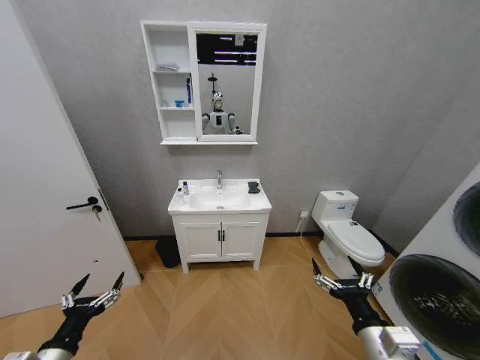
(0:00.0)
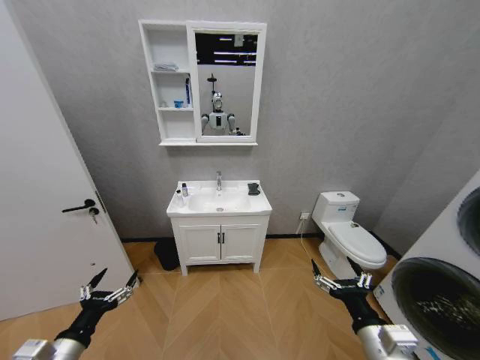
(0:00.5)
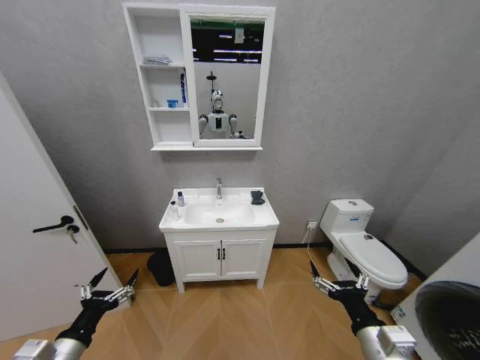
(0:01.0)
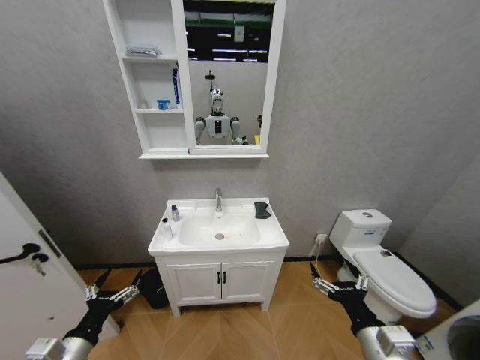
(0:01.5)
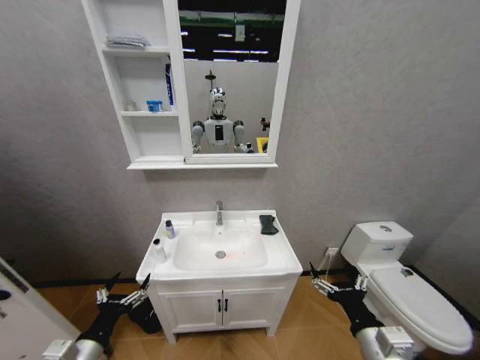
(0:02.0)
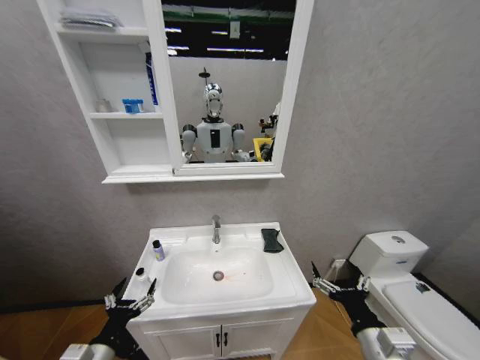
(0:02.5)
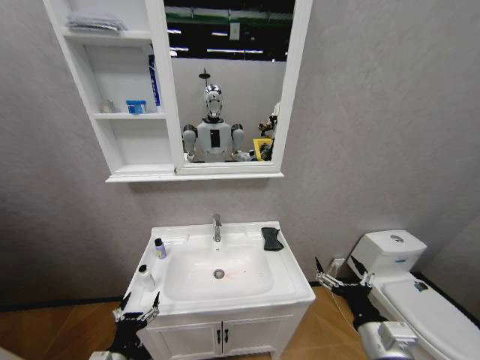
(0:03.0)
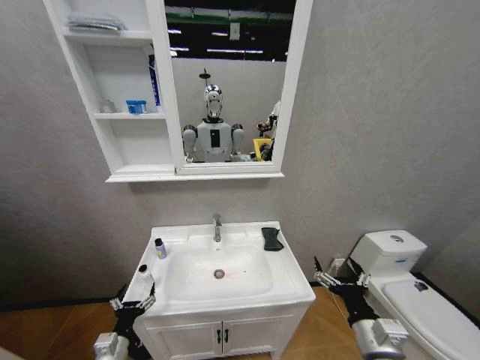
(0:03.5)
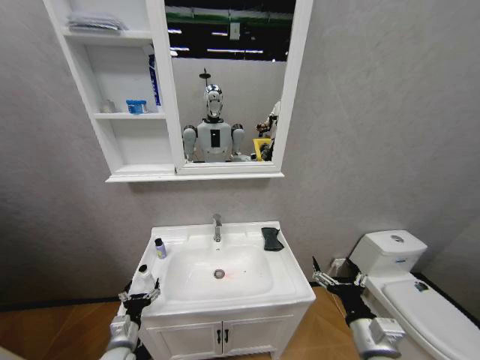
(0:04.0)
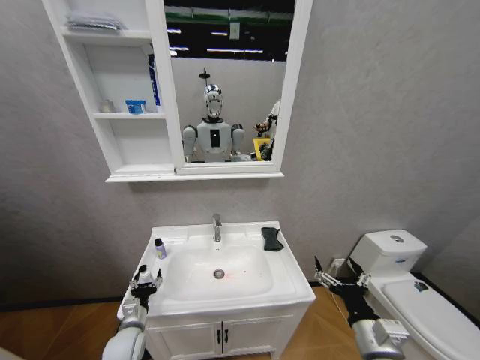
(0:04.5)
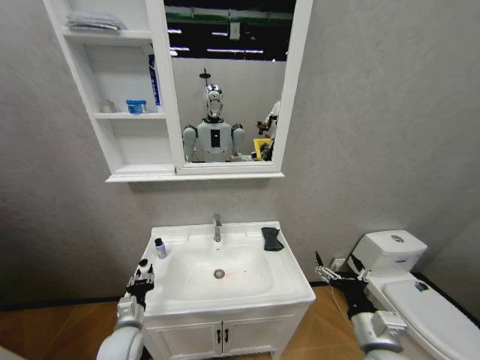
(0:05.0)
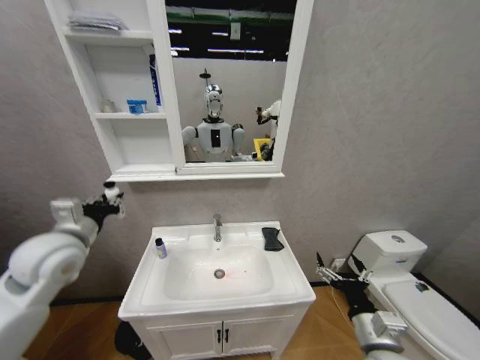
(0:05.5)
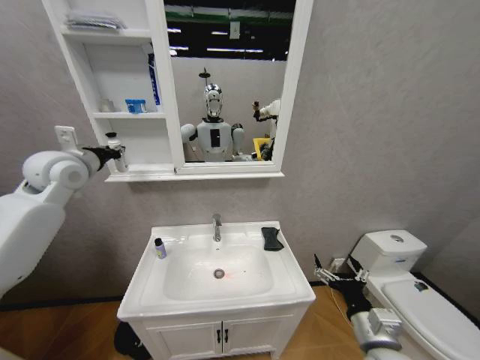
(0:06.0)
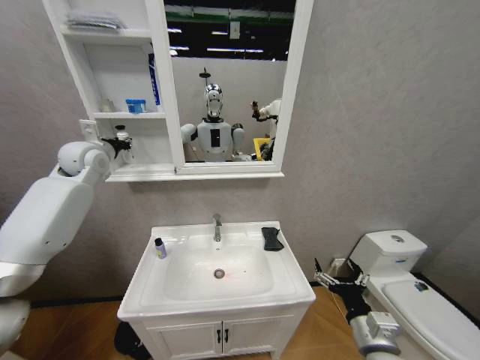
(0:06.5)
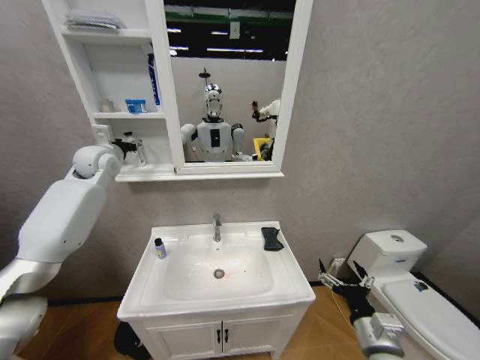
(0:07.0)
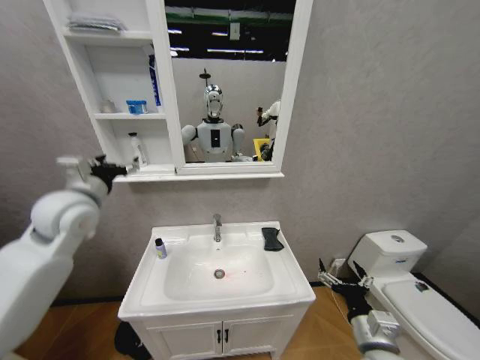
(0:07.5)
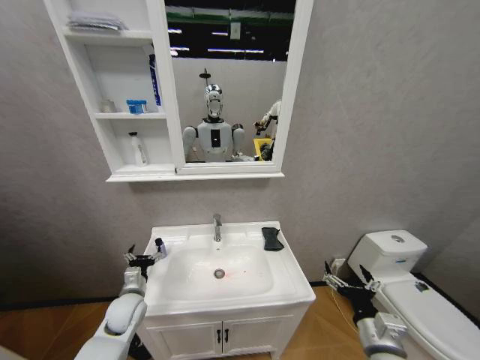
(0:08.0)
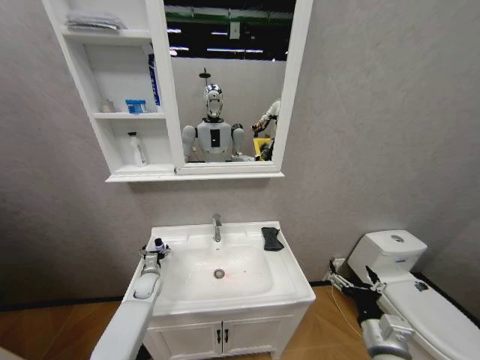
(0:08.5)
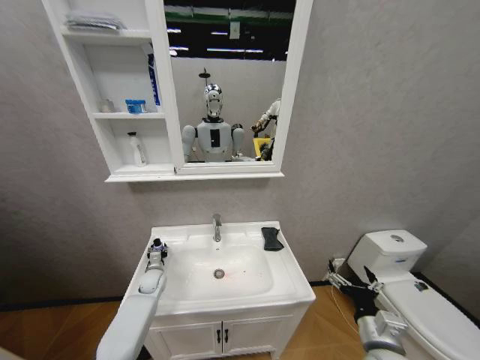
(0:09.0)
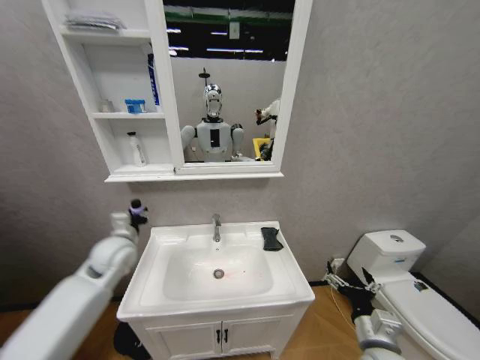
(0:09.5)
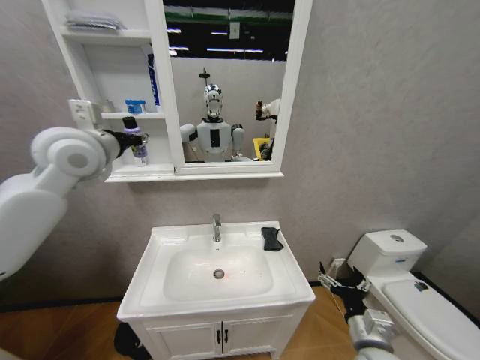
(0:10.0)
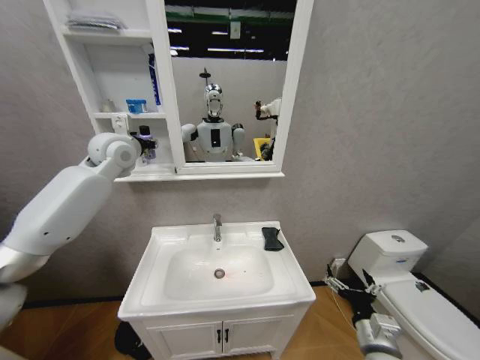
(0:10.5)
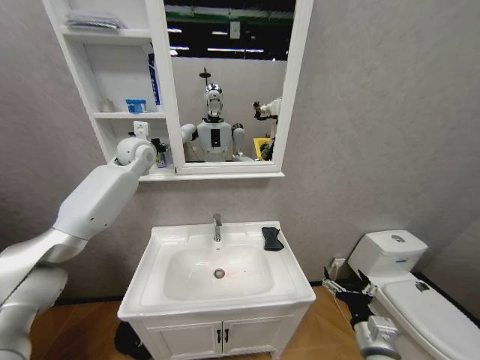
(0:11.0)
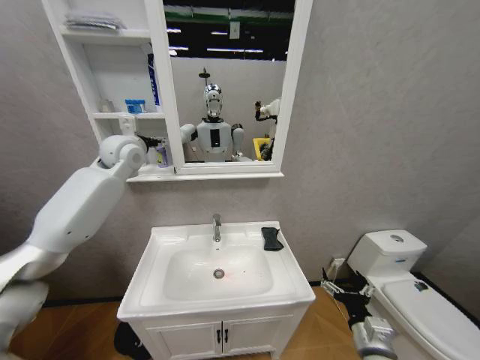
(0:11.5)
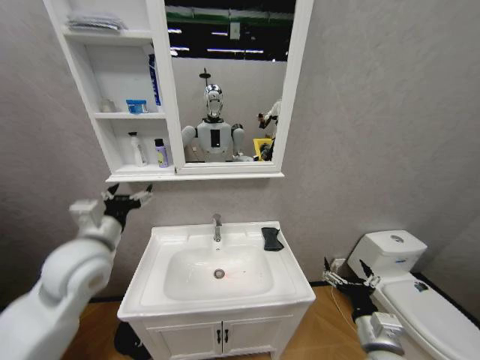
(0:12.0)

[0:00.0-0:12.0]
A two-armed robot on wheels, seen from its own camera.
Task of the whole recording: Move facial cleanser and shampoo from washbasin to cabinet, then wipe washbasin with towel.
0:02.0 to 0:04.0: The left gripper heads downward and forward, covering roughly 15 cm.
0:04.0 to 0:06.0: The left gripper moves upward, roughly 50 cm, and closes.
0:06.0 to 0:08.0: The left gripper travels downward by some 40 cm, and opens its fingers.
0:08.0 to 0:10.0: The left gripper moves upward, about 50 cm, and closes up.
0:10.0 to 0:12.0: The left gripper shifts about 25 cm downward and backward, and opens.

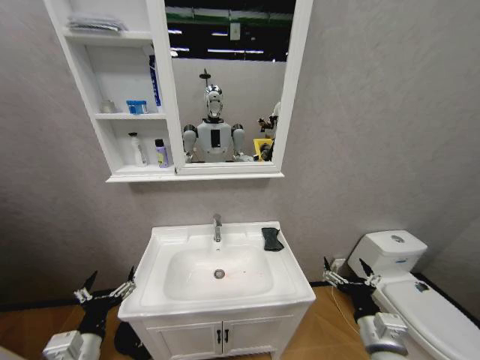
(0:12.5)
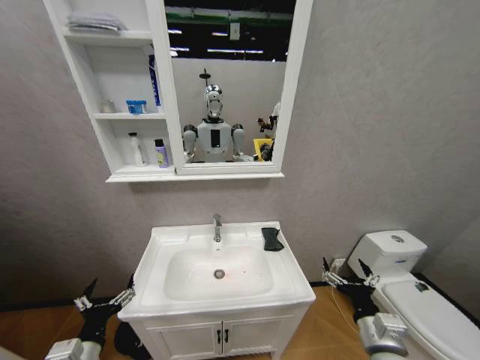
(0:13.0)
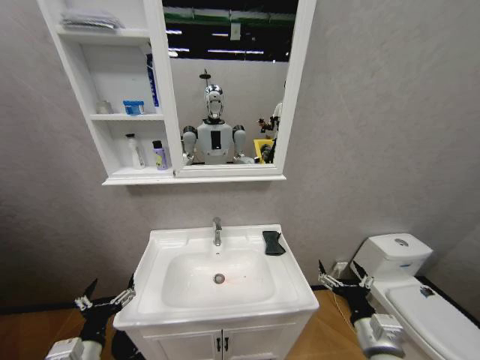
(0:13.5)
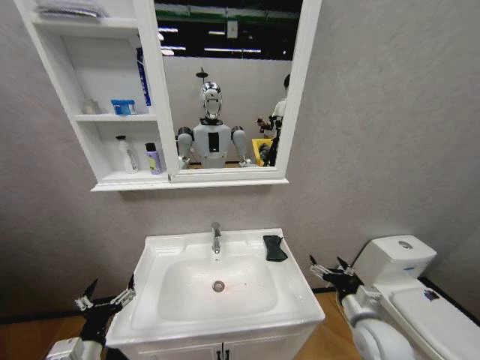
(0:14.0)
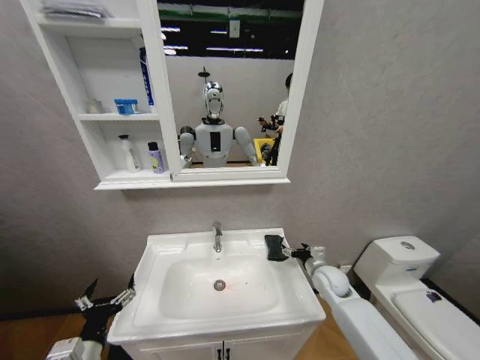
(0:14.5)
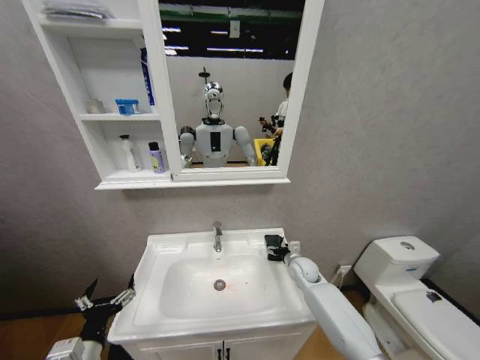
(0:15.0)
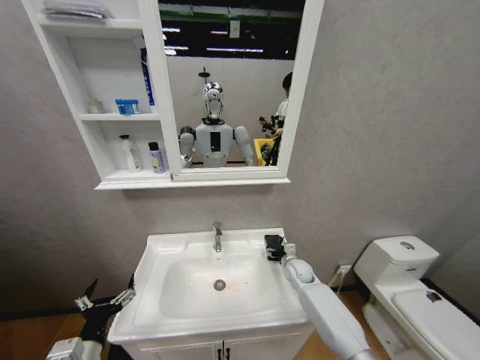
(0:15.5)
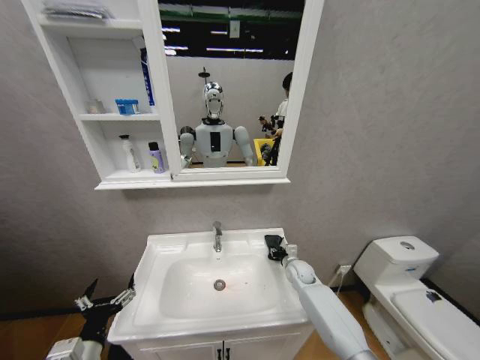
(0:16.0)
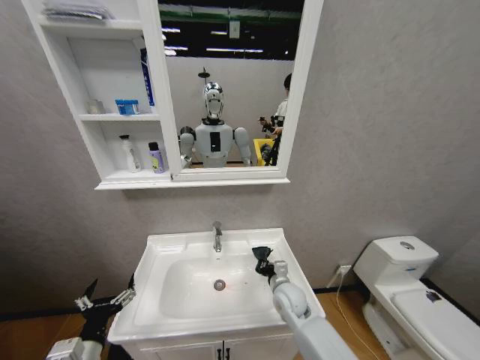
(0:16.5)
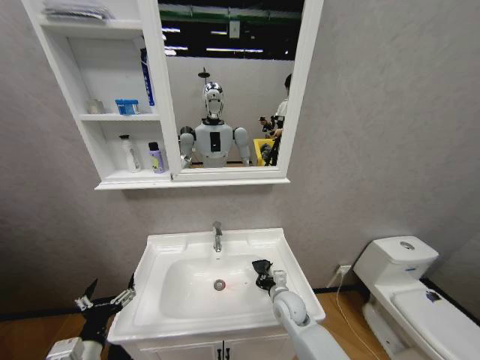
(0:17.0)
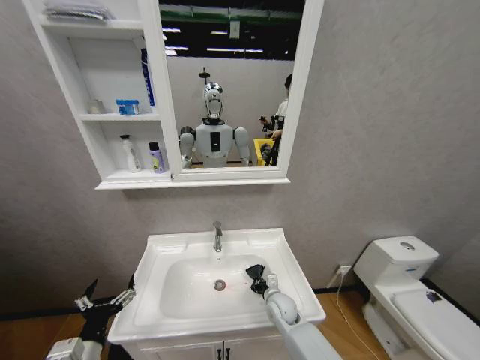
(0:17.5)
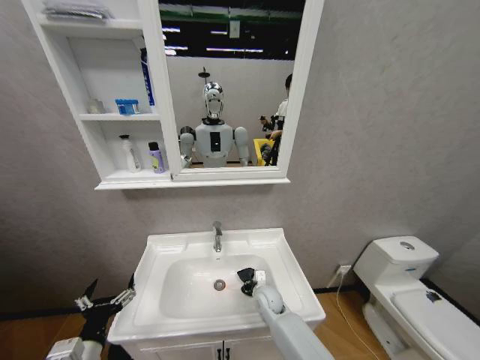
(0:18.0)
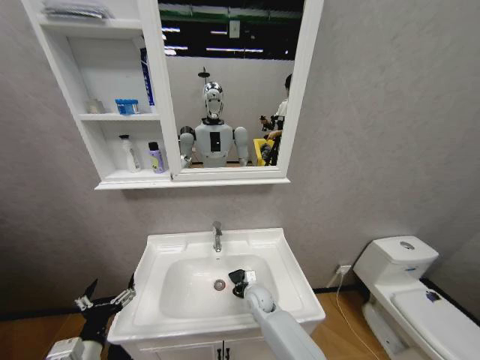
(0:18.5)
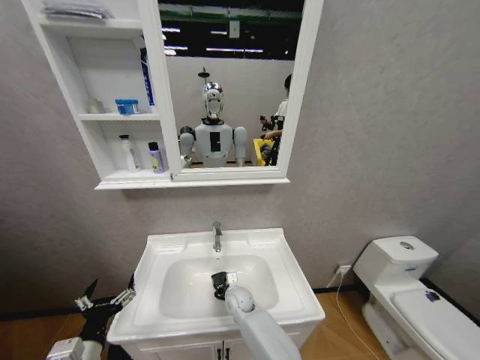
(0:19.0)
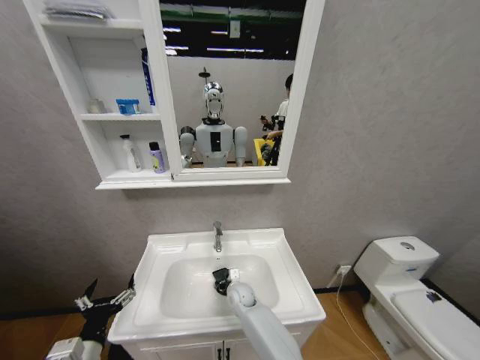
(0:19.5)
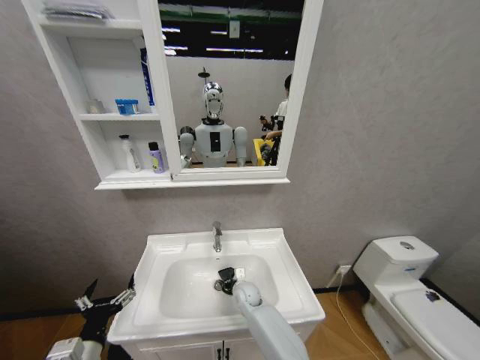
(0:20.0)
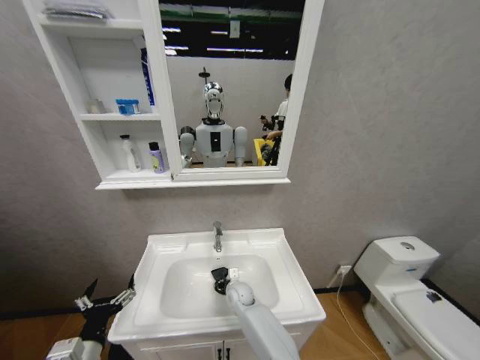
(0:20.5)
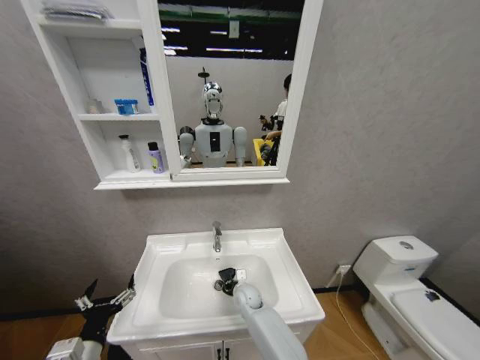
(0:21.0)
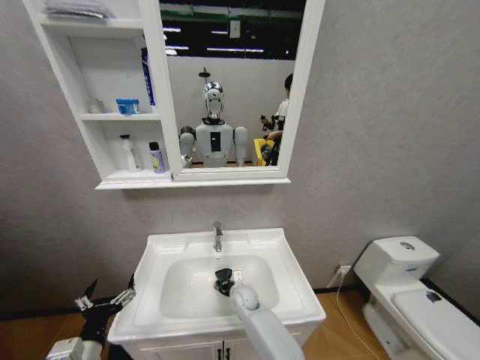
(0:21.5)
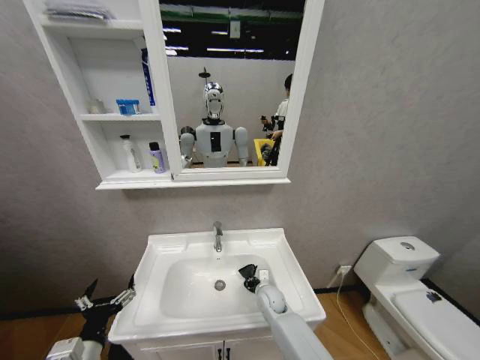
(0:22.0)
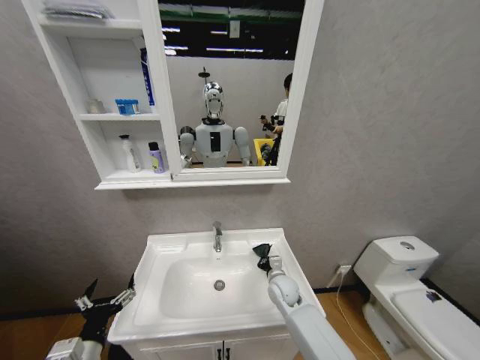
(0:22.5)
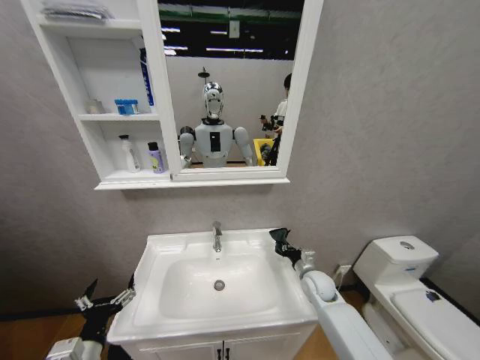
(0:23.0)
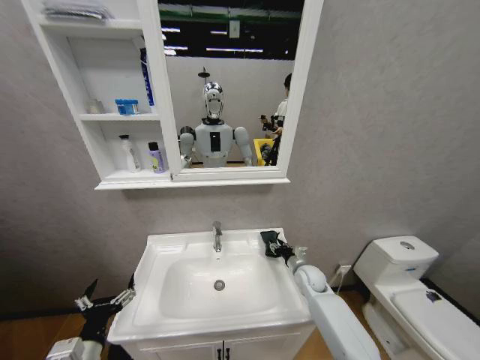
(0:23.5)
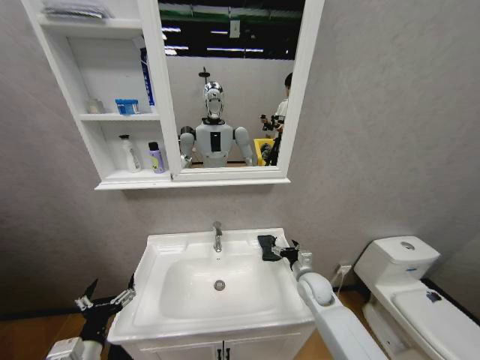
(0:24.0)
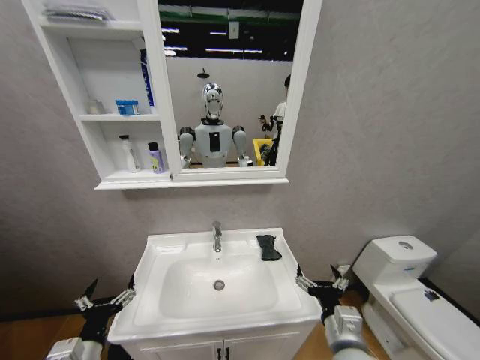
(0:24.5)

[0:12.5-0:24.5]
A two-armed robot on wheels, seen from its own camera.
Task of the whole recording: Move facial cleanser and shampoo from washbasin to cabinet, then wipe washbasin with towel.
0:12.5 to 0:14.5: The right gripper is displaced forward by about 25 cm.
0:14.5 to 0:16.5: The right gripper heads to the left, covering some 15 cm, and closes.
0:16.5 to 0:18.5: The right gripper moves to the left and downward, approximately 10 cm.
0:18.5 to 0:20.5: The right gripper shifts roughly 5 cm to the left.
0:20.5 to 0:22.5: The right gripper heads to the right and upward, covering roughly 15 cm.
0:22.5 to 0:24.5: The right gripper travels backward by about 25 cm, and opens up.

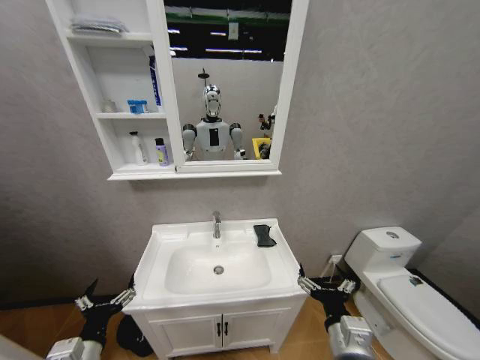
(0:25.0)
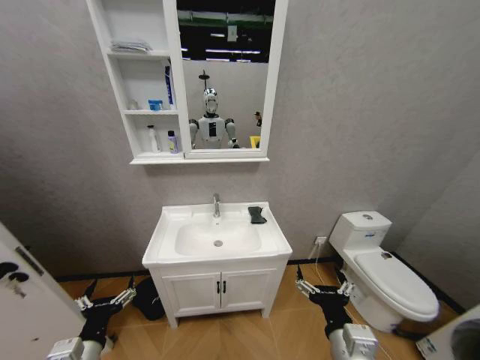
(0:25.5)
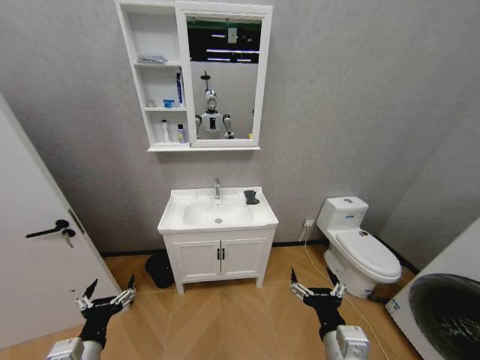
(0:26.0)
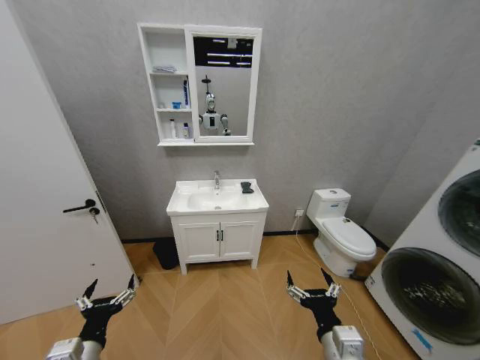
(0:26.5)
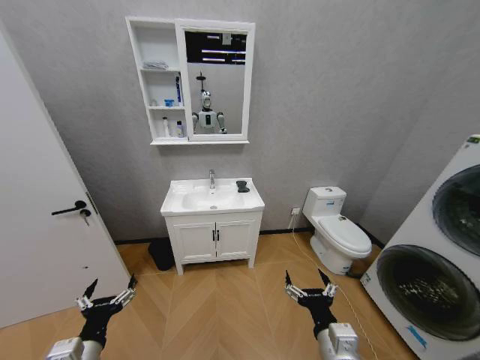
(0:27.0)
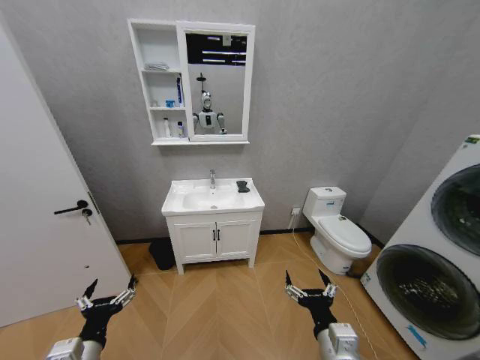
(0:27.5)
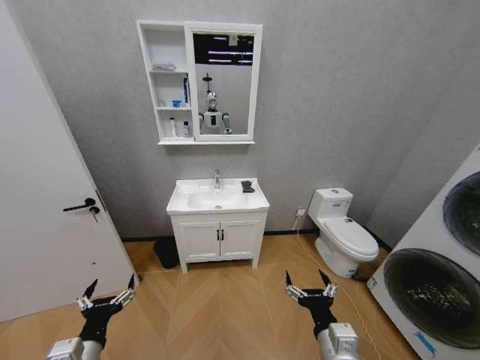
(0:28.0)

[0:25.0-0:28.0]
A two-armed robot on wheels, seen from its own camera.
Task of the whole recording: Move facial cleanser and shampoo from washbasin to cabinet, then wipe washbasin with towel.
0:26.5 to 0:28.0: There are only small adjustments of the grippers.
